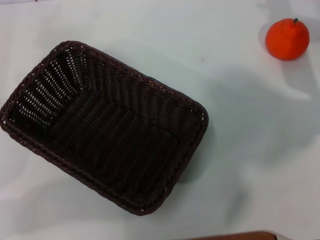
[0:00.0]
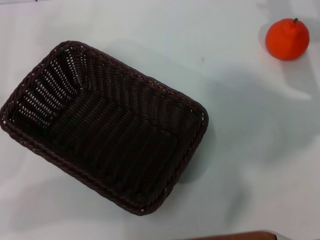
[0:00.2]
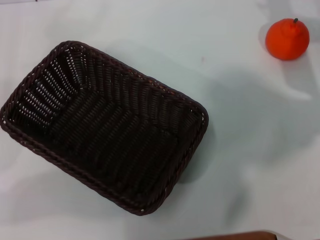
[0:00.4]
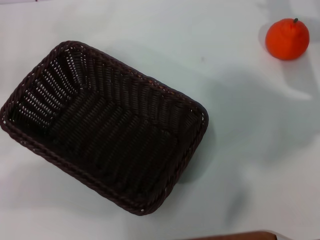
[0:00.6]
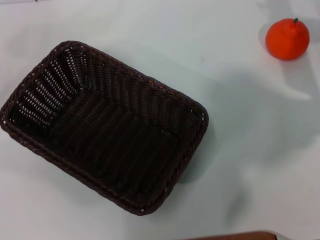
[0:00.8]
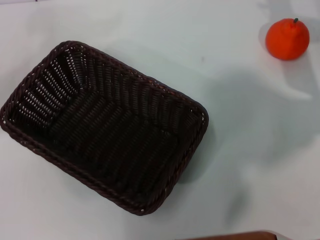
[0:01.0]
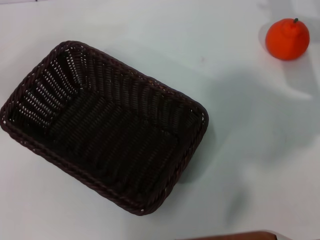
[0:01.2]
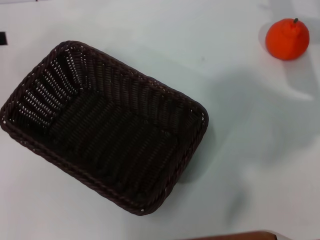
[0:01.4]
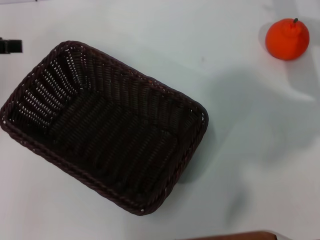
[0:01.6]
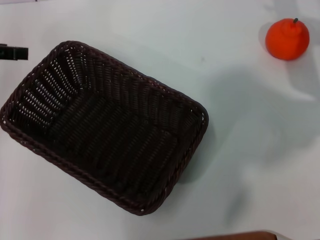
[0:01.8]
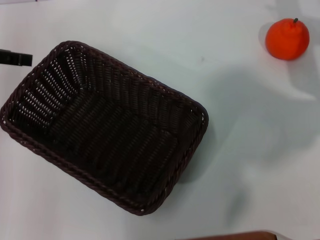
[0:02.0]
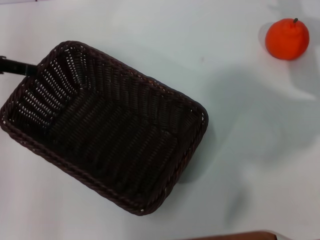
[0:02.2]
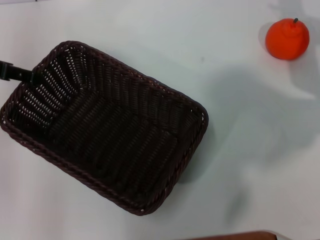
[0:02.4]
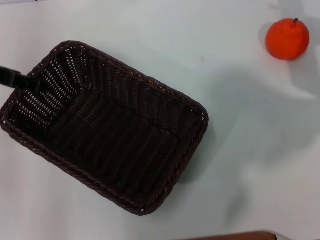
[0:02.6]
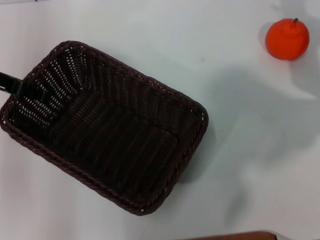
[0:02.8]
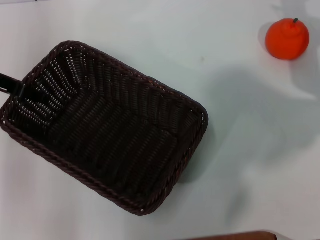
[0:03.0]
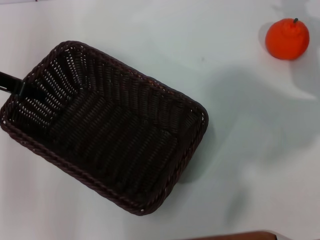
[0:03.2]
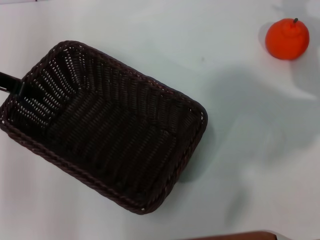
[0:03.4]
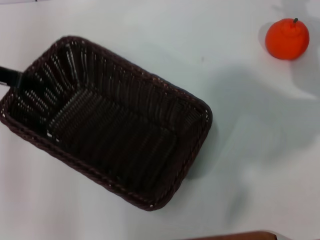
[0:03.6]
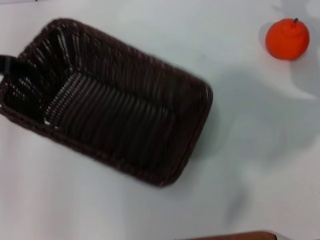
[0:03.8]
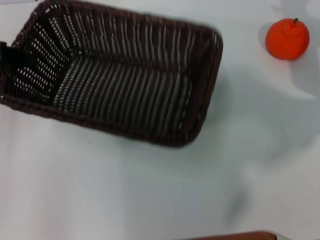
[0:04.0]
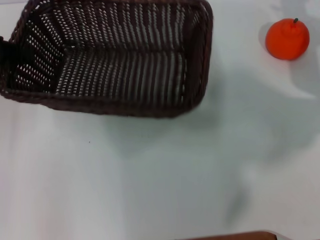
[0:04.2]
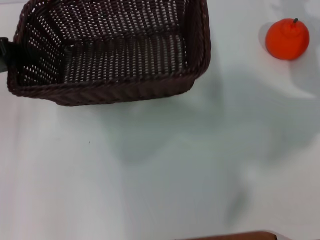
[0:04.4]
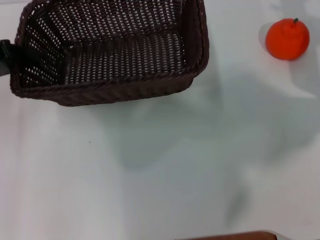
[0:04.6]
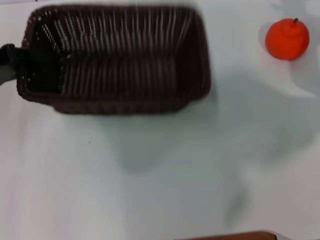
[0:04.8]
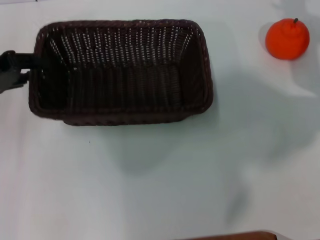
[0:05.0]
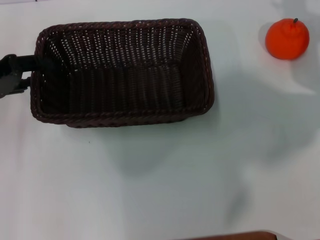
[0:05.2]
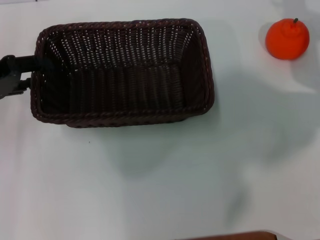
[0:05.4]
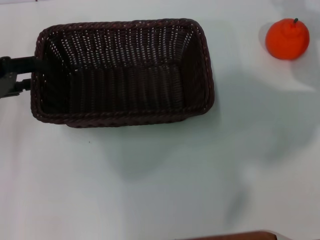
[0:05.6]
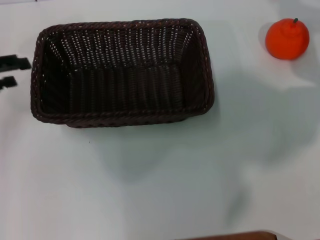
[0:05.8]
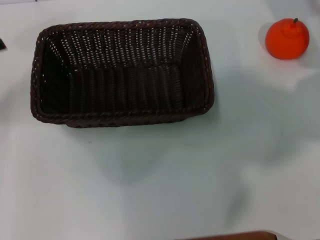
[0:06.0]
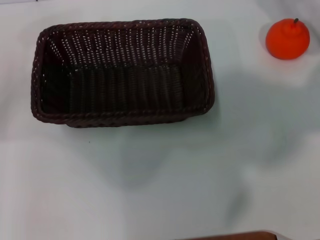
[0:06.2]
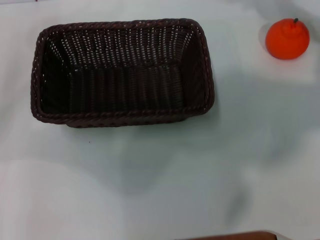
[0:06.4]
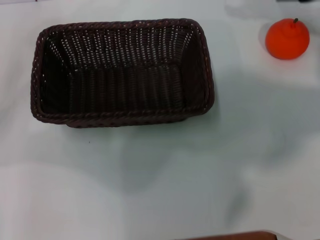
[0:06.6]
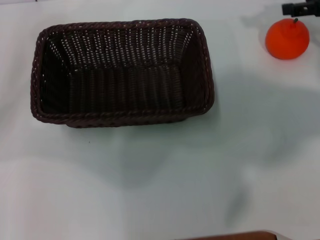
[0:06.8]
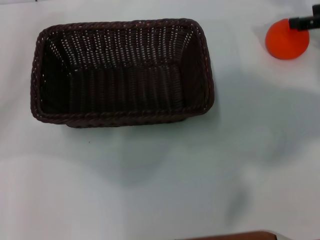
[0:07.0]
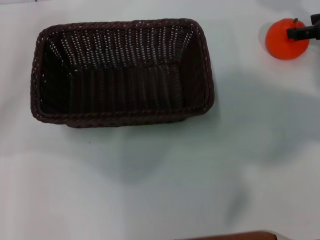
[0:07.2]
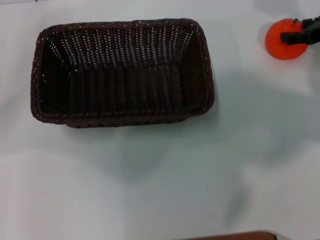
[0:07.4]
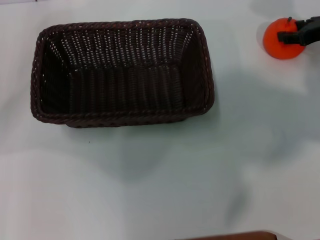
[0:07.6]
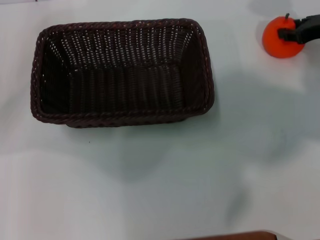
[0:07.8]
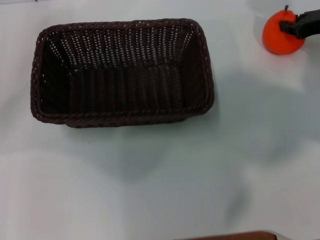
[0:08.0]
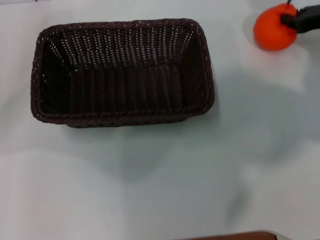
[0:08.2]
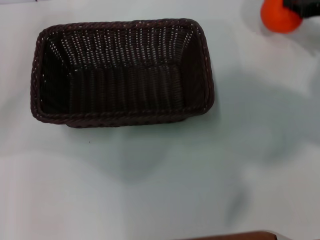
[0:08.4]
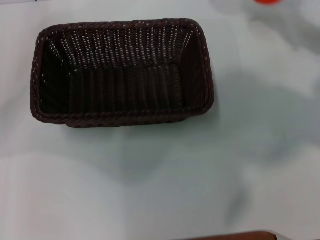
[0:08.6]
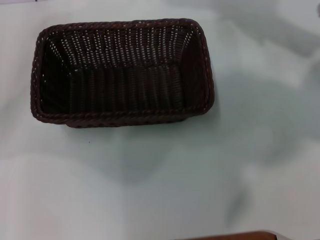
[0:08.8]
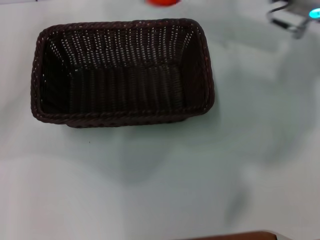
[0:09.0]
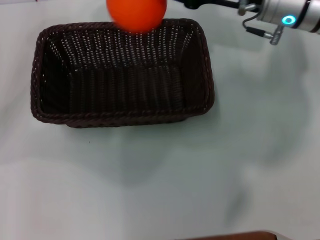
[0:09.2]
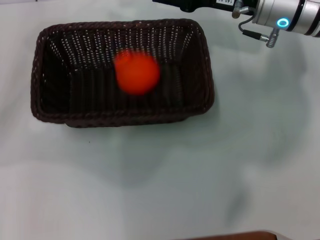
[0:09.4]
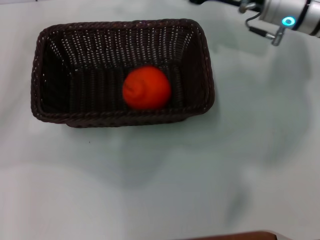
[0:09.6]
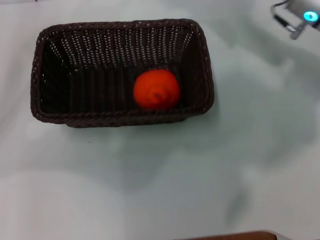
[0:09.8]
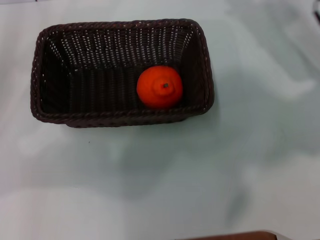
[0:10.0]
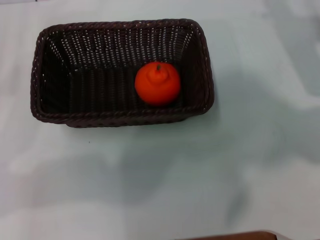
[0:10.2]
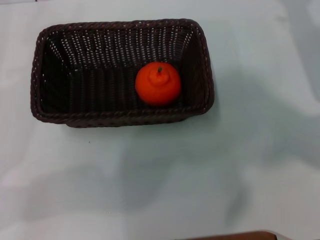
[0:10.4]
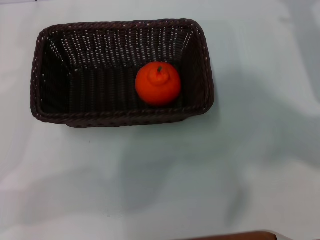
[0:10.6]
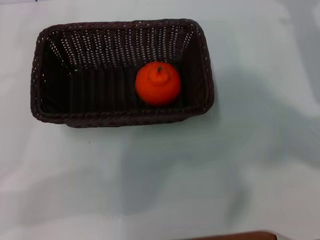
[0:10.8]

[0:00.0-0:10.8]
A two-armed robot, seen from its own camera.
Task of the whole recording: the left gripper pick up the black basket and place it horizontally in the middle of the table, the right gripper pick up the orange and place it into the black basket.
Step, 0:00.0 to 0:03.6: Pick up the dark basket with the left gripper.
Step, 0:04.0 to 0:05.6: Place the dark basket in the center of view with the left gripper.
Step, 0:06.0 to 0:08.2: Pick up the orange with the right gripper.
Step, 0:08.4 to 0:09.4: Place the orange into the dark basket with the right gripper.
0:00.0 to 0:01.6: The left gripper is displaced forward and upward by about 15 cm.
0:01.6 to 0:03.0: The left gripper heads to the right, covering some 5 cm.
0:03.0 to 0:04.6: The left gripper closes up.
0:04.6 to 0:06.2: The left gripper is displaced to the left by approximately 5 cm, and opens up. The right gripper ends up some 5 cm from where it was.
0:07.8 to 0:09.2: The right gripper is displaced to the left by some 15 cm, and closes.
0:09.2 to 0:10.8: The left gripper travels backward by some 10 cm, while the right gripper shifts roughly 15 cm to the right and downward, and opens.
